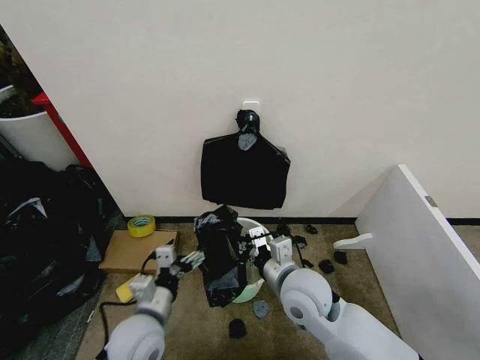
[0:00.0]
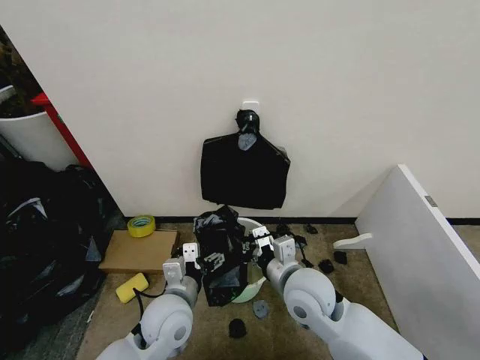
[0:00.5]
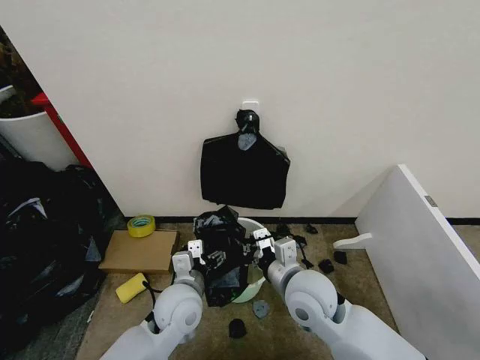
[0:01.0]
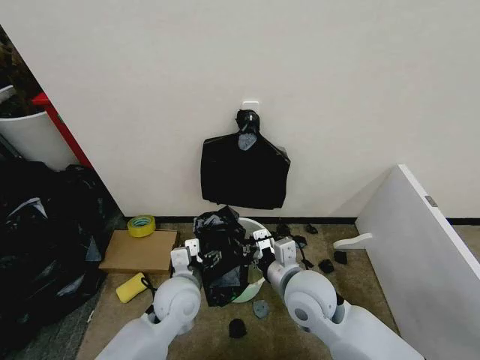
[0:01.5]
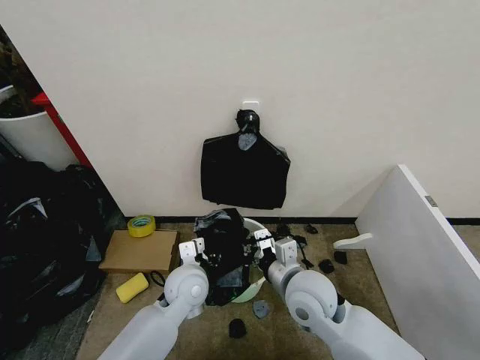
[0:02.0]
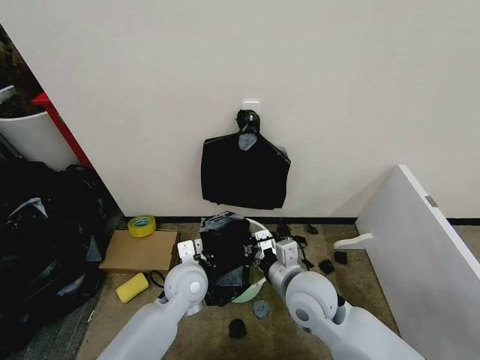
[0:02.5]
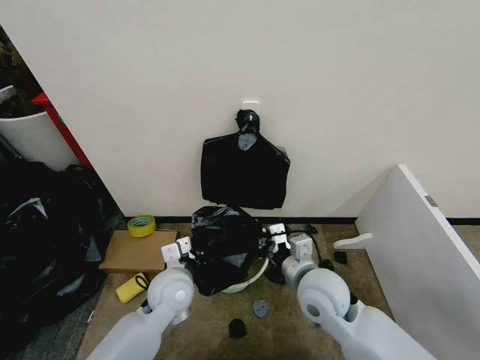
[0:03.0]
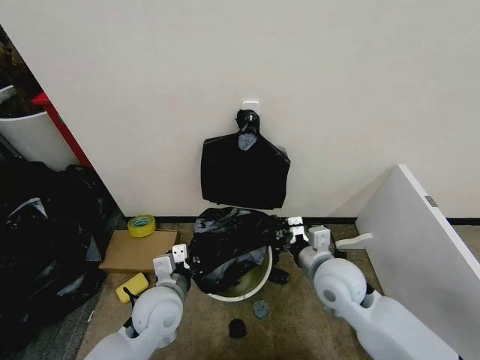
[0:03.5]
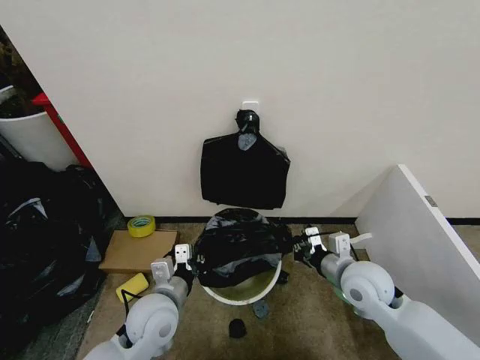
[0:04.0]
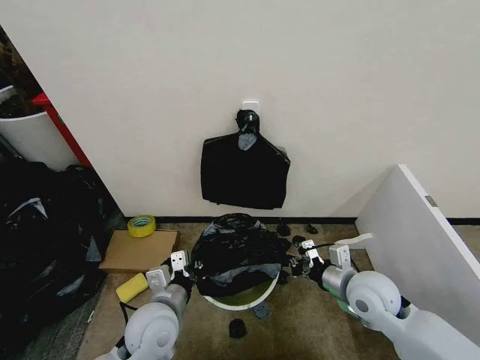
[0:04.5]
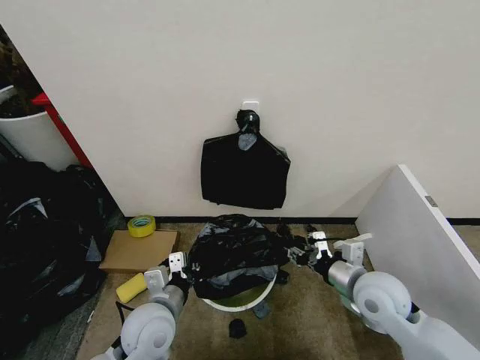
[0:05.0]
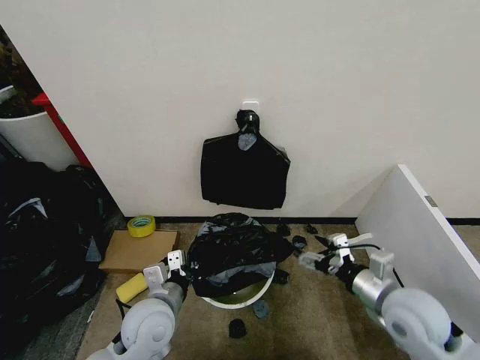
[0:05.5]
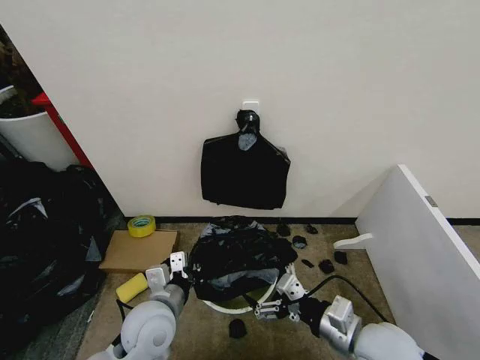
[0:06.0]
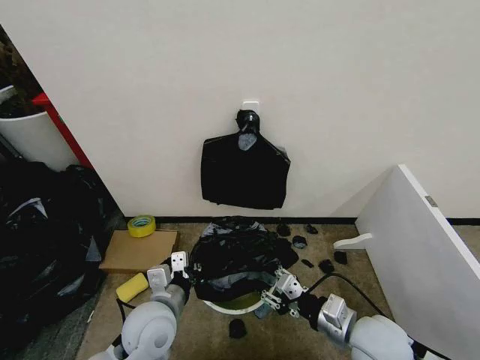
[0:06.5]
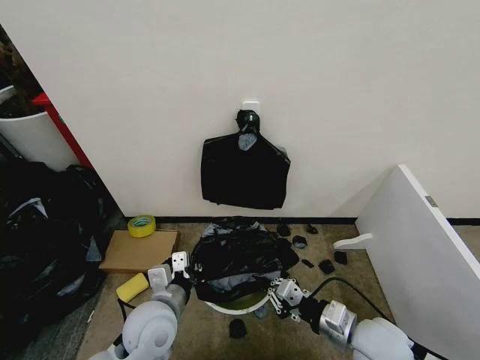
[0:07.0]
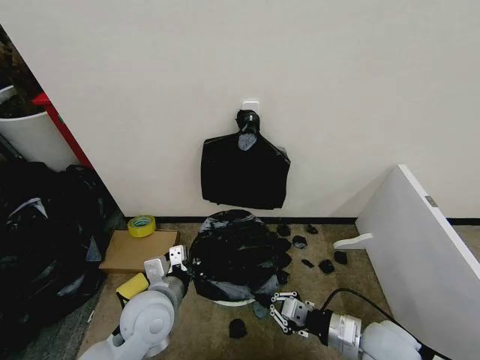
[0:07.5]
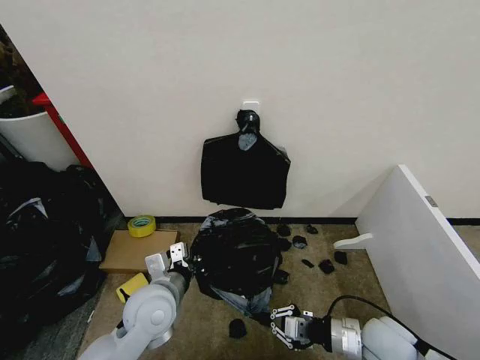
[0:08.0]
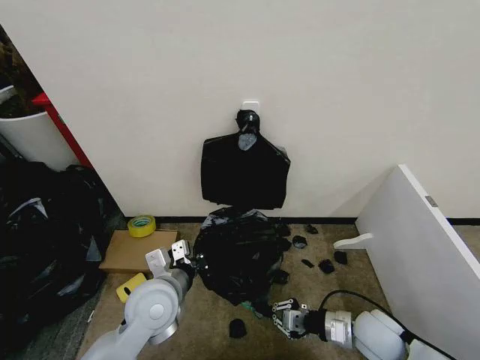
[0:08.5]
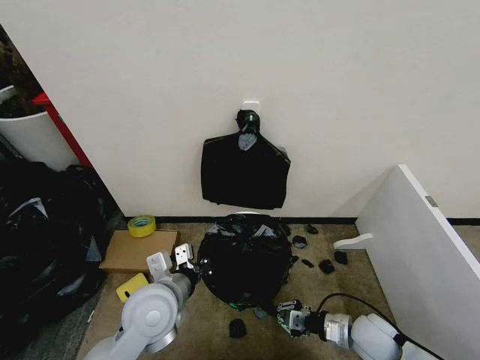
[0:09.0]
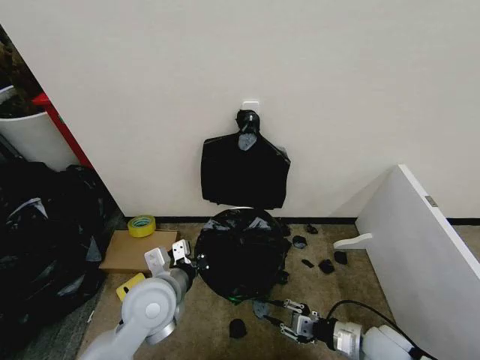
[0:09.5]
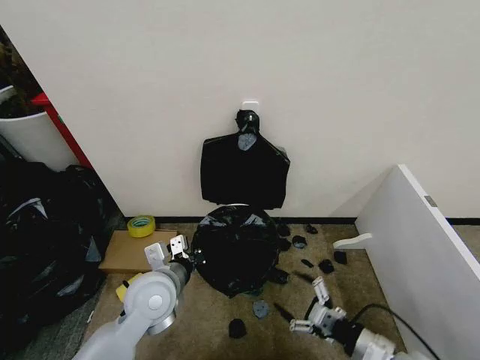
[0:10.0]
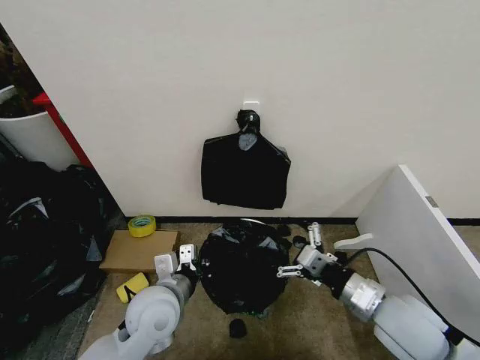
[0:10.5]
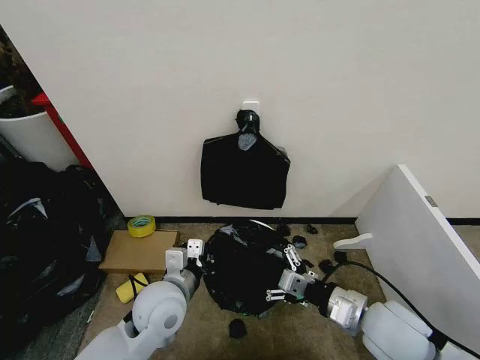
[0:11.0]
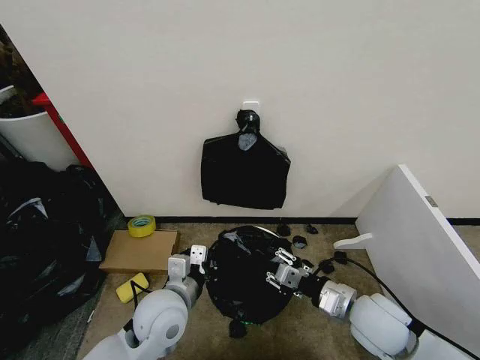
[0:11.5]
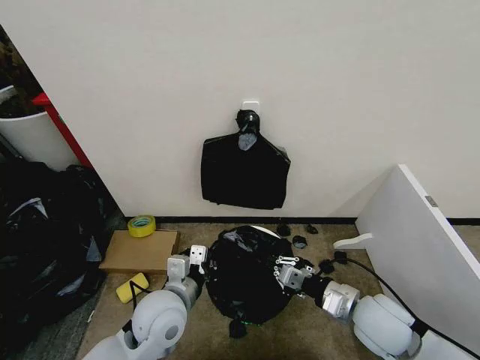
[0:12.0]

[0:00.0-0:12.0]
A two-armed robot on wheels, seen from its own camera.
Task of the whole recording: Place the garbage bag over the trash bin.
0:00.0 to 0:02.0: The left gripper moves forward and to the right, roughly 15 cm, and closes its fingers.
0:02.0 to 0:04.0: The right gripper heads to the right, covering roughly 15 cm, while the left gripper goes approximately 10 cm backward and to the left, and closes its fingers.
0:04.0 to 0:06.0: The right gripper shifts some 10 cm backward, and opens up.
0:06.0 to 0:08.0: The right gripper is displaced downward and to the right by about 10 cm, and closes its fingers.
0:08.0 to 0:10.0: The right gripper goes approximately 5 cm backward, and opens.
0:10.0 to 0:12.0: The right gripper is displaced forward and upward by some 10 cm, and closes up.

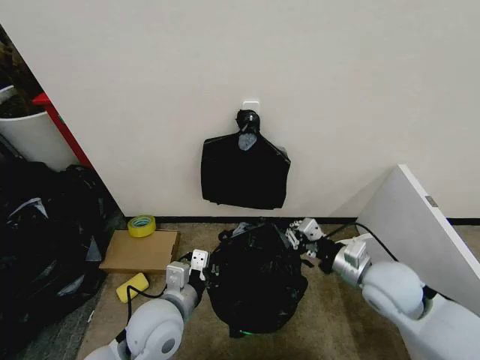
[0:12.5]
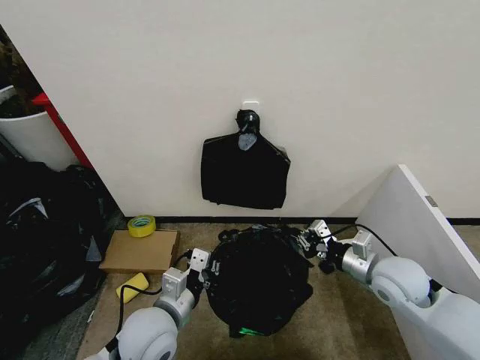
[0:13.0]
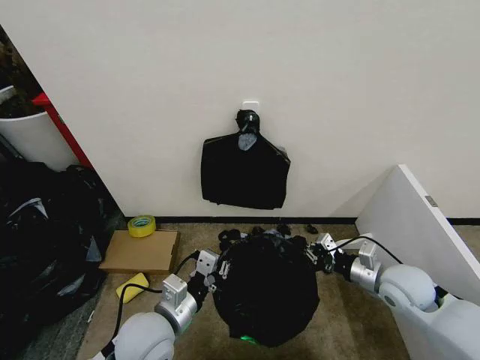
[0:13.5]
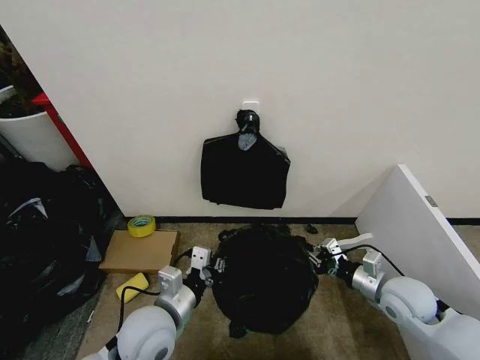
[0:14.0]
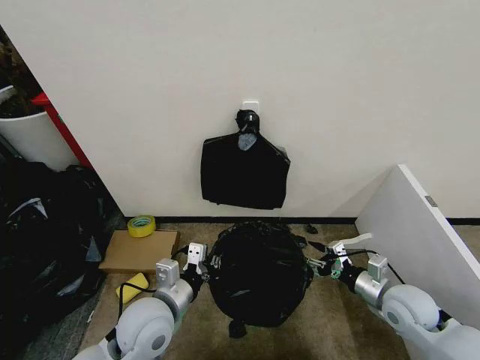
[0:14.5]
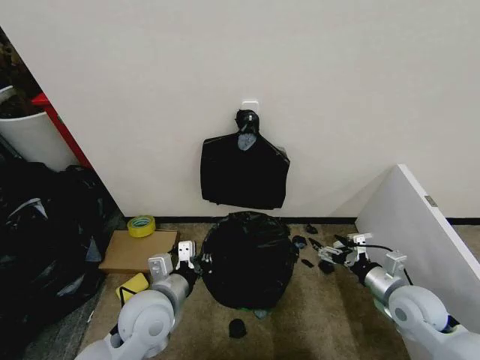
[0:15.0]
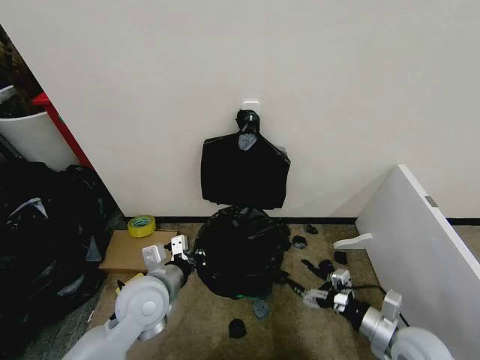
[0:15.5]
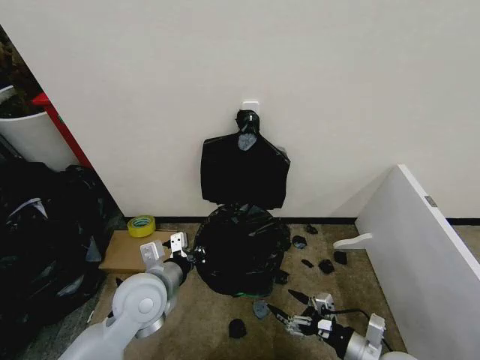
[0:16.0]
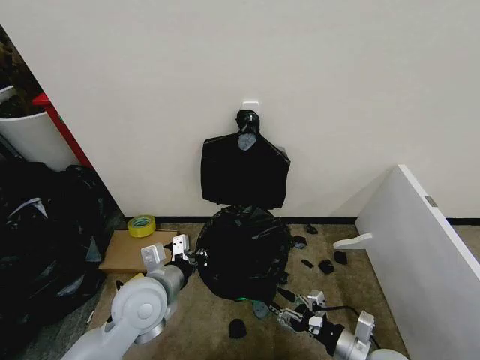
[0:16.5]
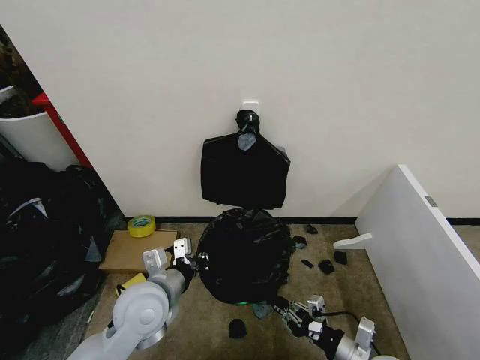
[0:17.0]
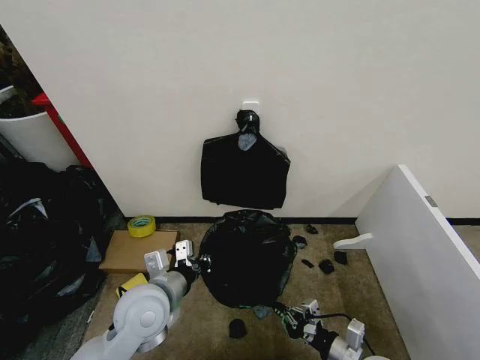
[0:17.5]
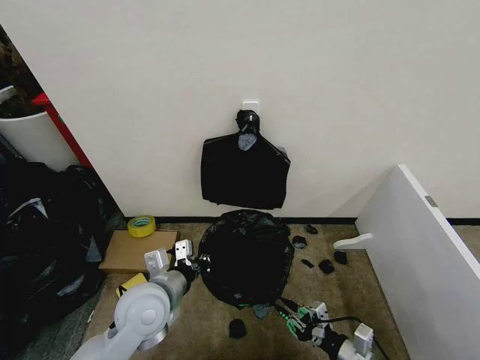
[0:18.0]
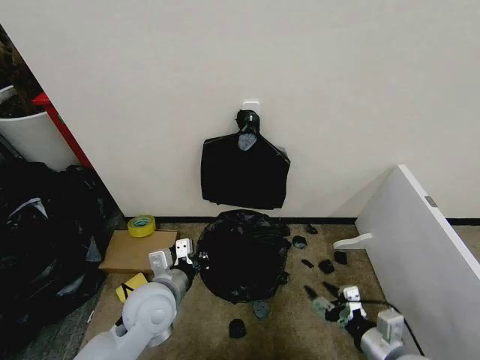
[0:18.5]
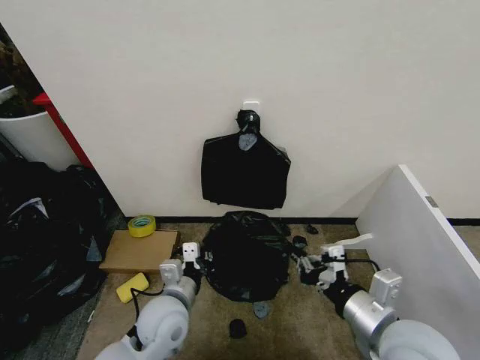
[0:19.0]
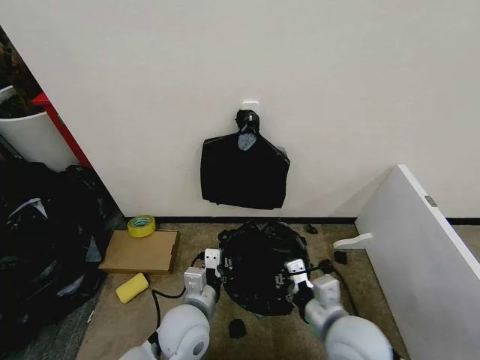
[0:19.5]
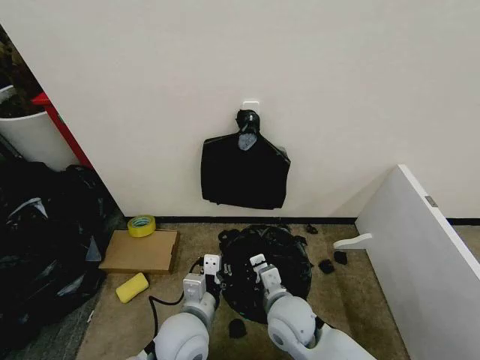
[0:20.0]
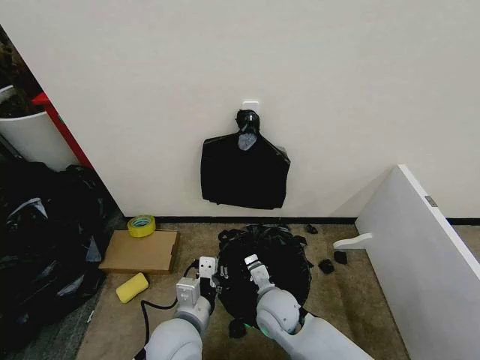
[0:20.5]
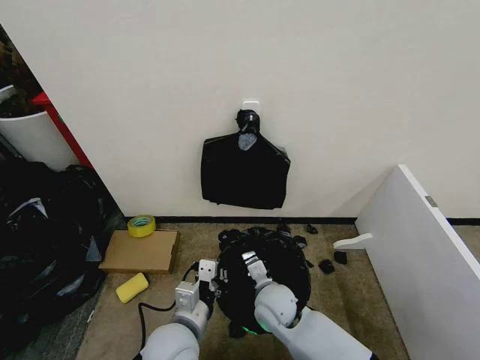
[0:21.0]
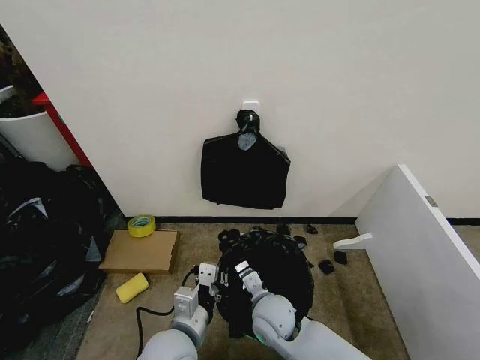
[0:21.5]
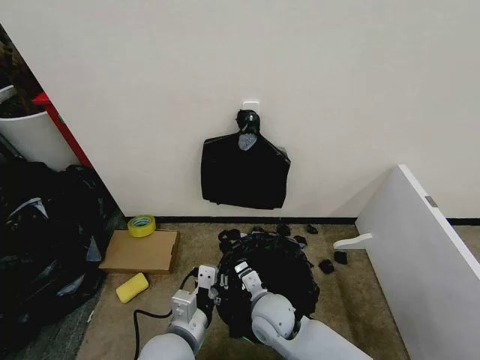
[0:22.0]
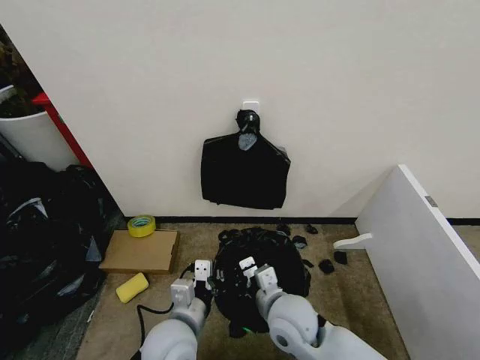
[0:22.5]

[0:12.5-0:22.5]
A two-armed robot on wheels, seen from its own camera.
Task of the whole recording: Place the garbage bag over the trash bin.
0:12.5 to 0:14.5: The right gripper goes some 10 cm downward and to the right, and opens up.
0:14.5 to 0:16.5: The right gripper moves backward, to the left and downward, roughly 15 cm.
0:16.5 to 0:18.5: The right gripper shifts some 5 cm upward, and closes, then reopens.
0:18.5 to 0:20.5: The right gripper travels to the left and forward by about 25 cm, and closes, while the left gripper heads backward and to the right, covering roughly 10 cm.
0:20.5 to 0:22.5: The right gripper moves upward, some 5 cm.

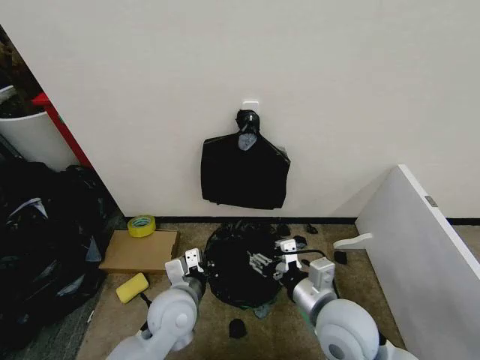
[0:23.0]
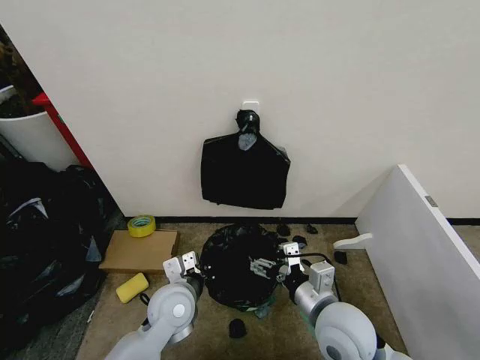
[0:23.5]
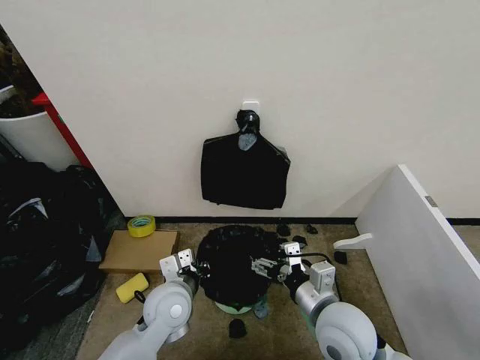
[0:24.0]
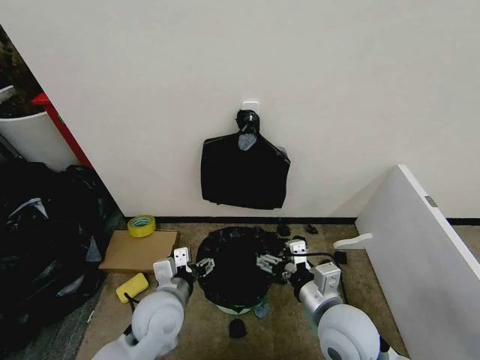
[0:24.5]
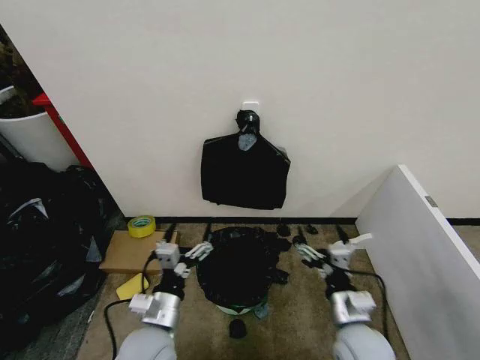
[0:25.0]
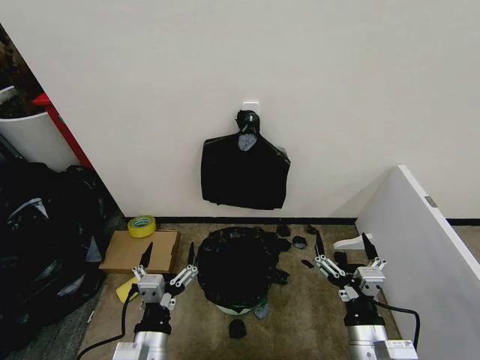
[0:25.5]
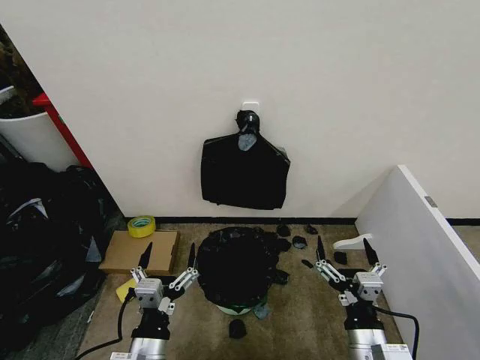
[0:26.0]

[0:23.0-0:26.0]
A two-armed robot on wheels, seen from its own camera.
Task of the whole recording: Place the garbage bag over the trash bin.
0:23.0 to 0:24.5: The left gripper opens up.
0:24.5 to 0:26.0: The right gripper heads backward and downward, covering roughly 10 cm. The left gripper heads backward, covering roughly 15 cm.
